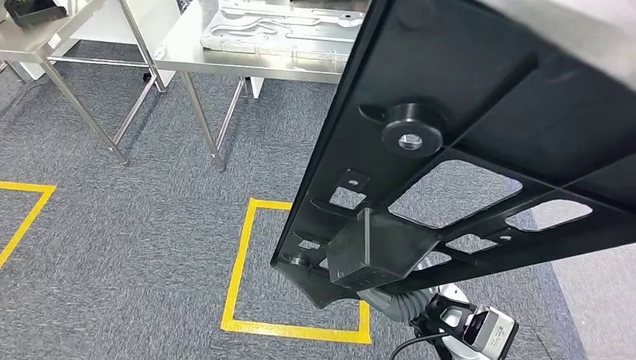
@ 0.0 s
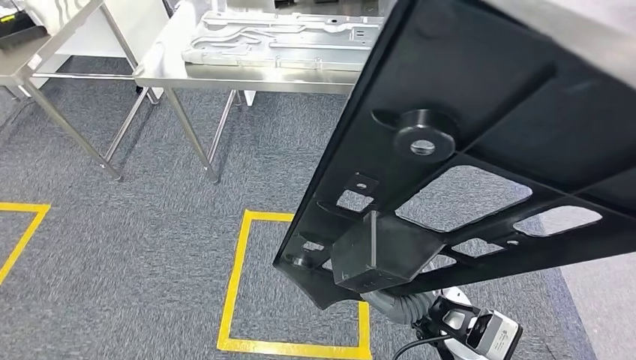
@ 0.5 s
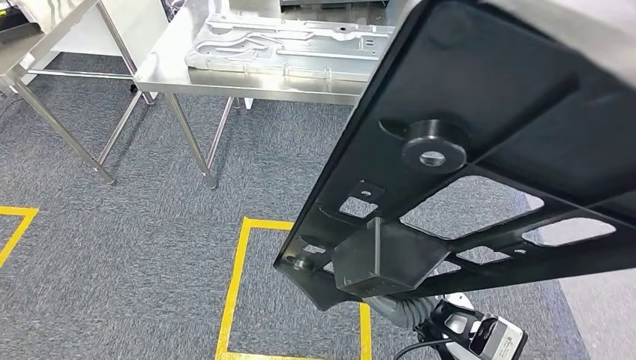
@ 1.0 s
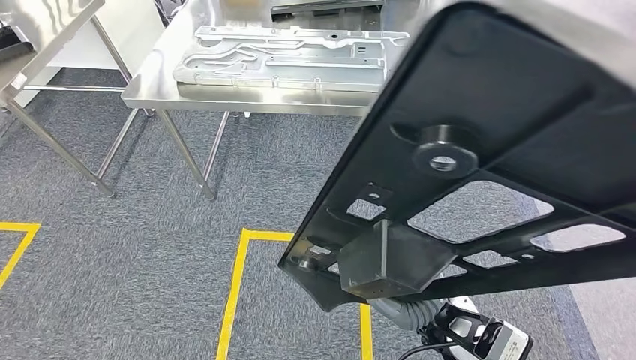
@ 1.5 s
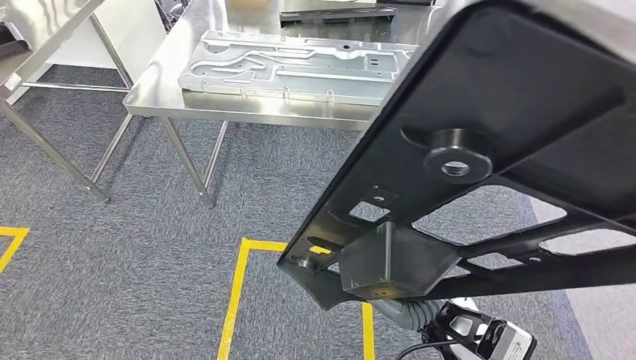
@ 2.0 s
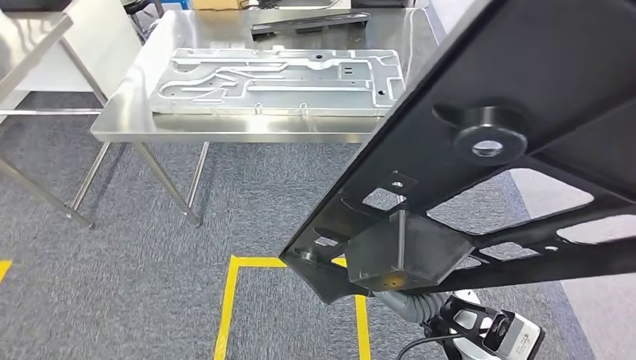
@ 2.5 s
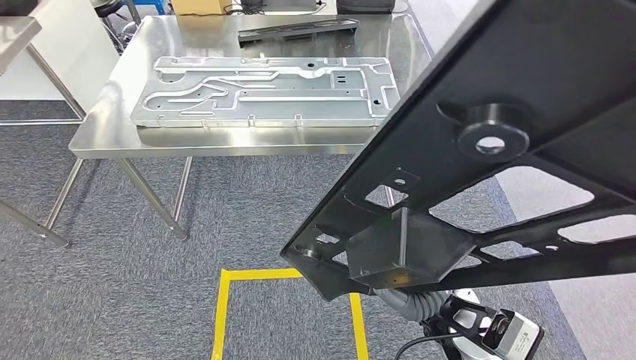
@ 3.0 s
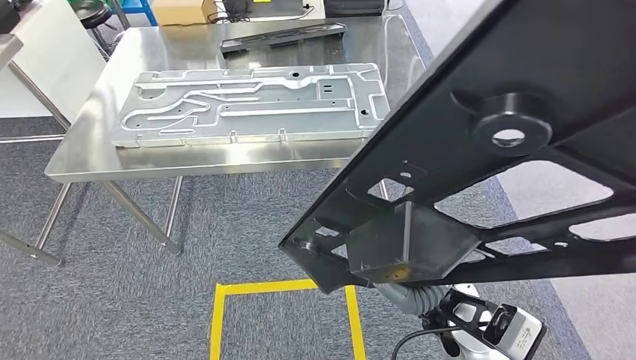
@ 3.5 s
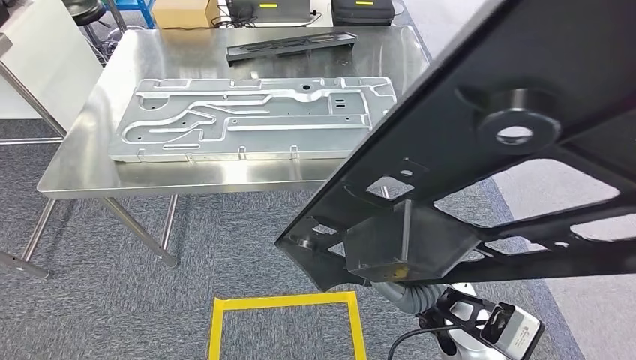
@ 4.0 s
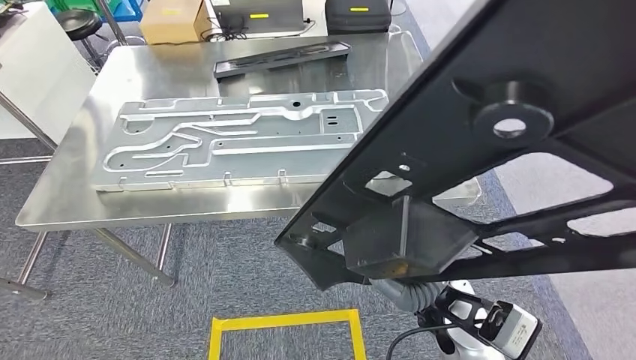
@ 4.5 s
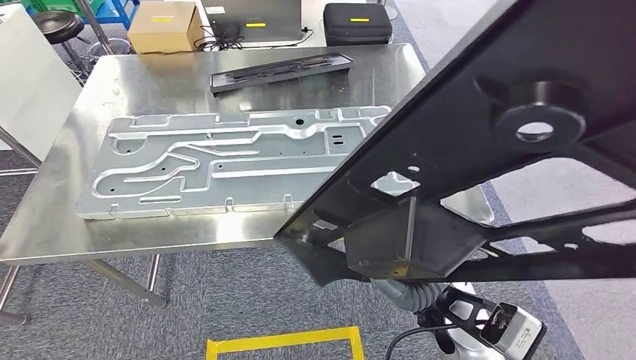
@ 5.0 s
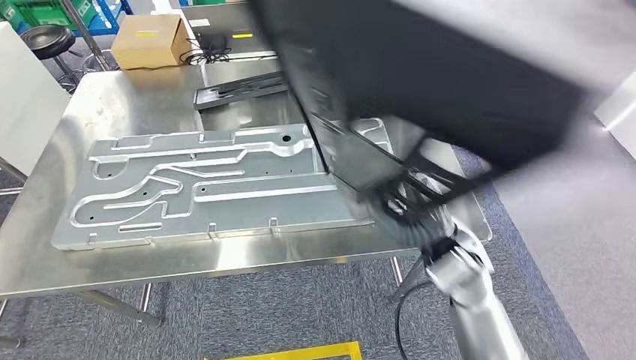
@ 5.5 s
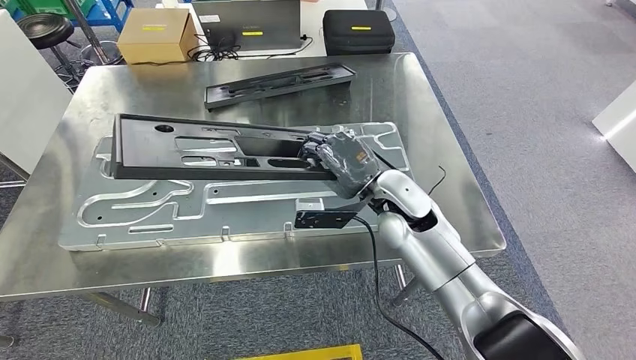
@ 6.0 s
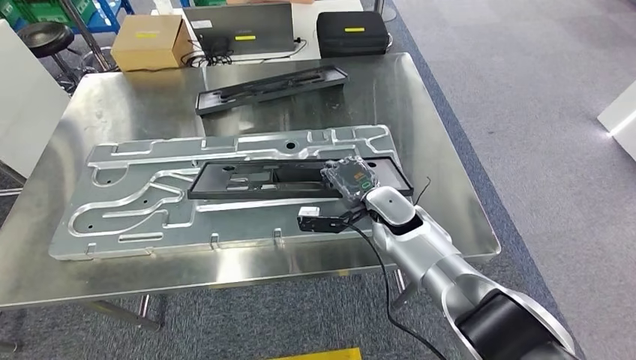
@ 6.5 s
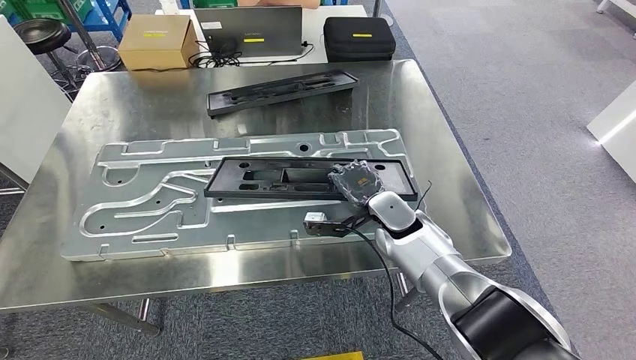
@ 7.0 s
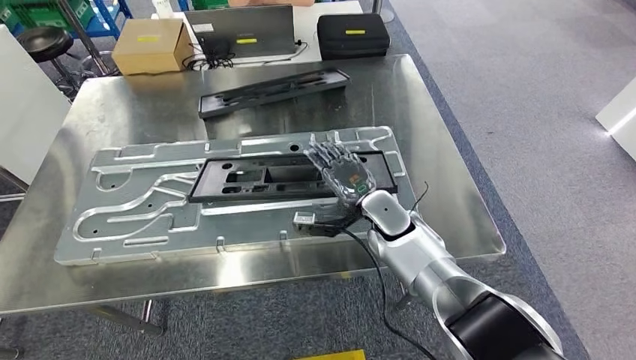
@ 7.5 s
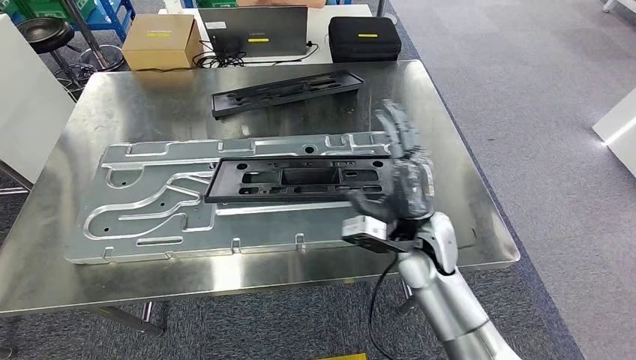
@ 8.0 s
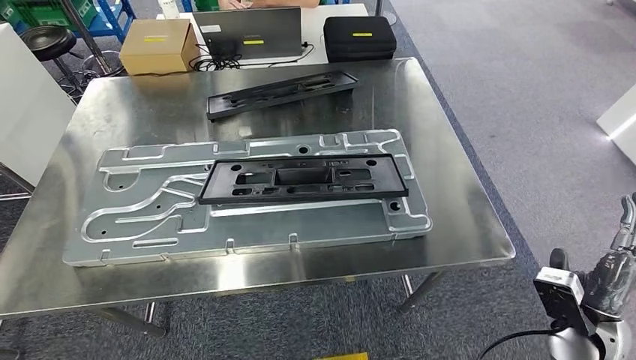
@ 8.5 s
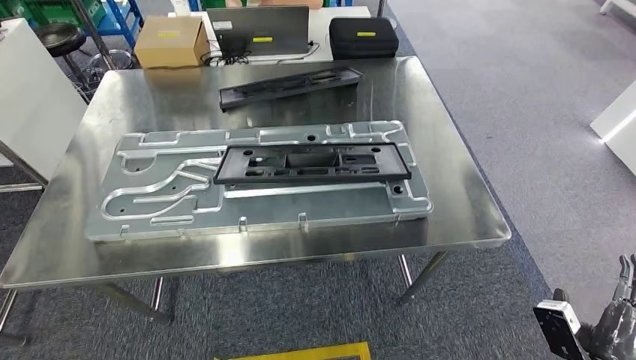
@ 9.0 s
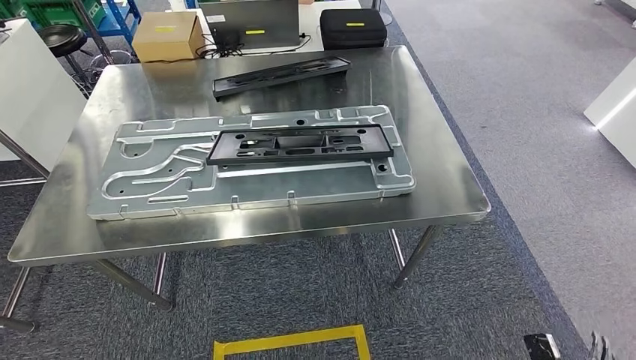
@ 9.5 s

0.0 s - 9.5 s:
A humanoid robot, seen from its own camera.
Step, 0.0 s - 3.5 s: Move the large material to the front of the workbench.
Step, 4.0 s - 9.0 s: Insert the large material into the corresponding hole on the workbench.

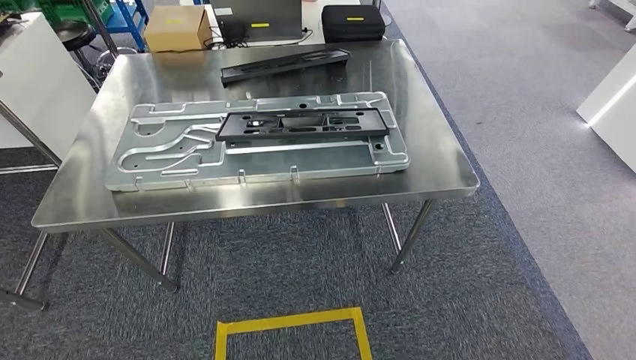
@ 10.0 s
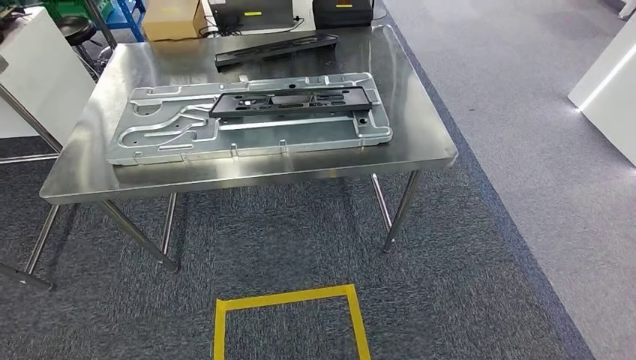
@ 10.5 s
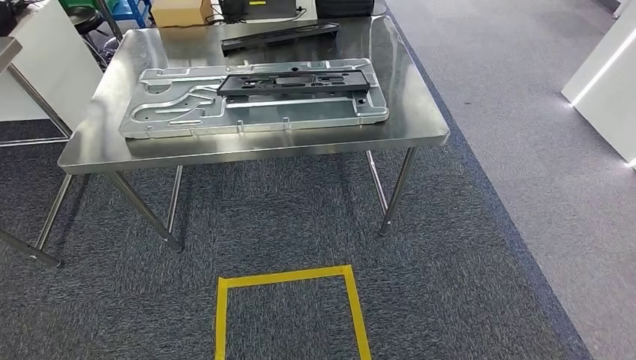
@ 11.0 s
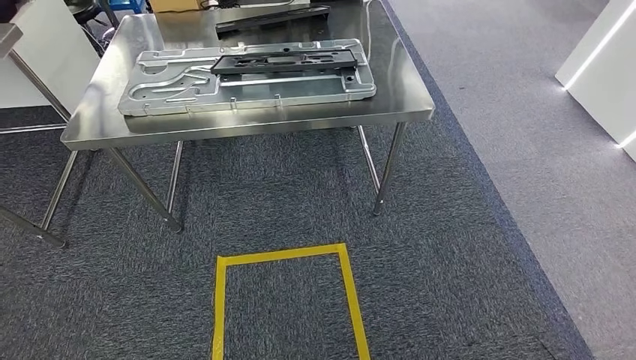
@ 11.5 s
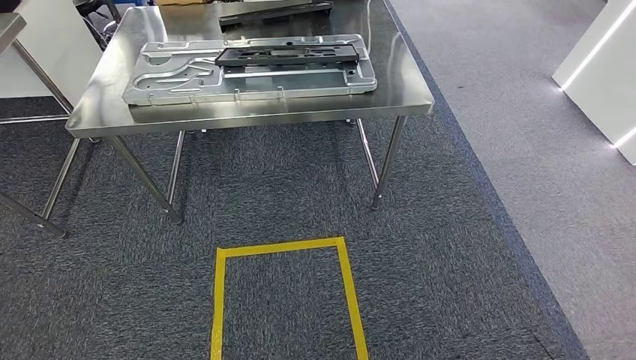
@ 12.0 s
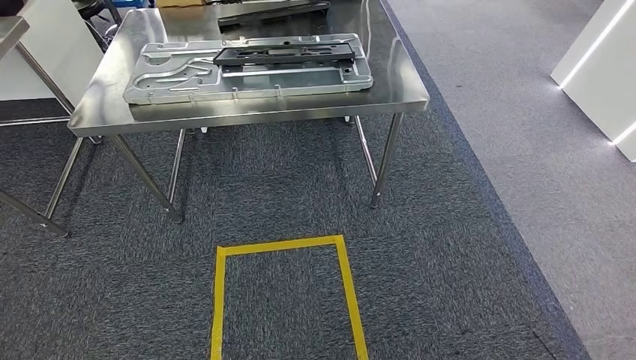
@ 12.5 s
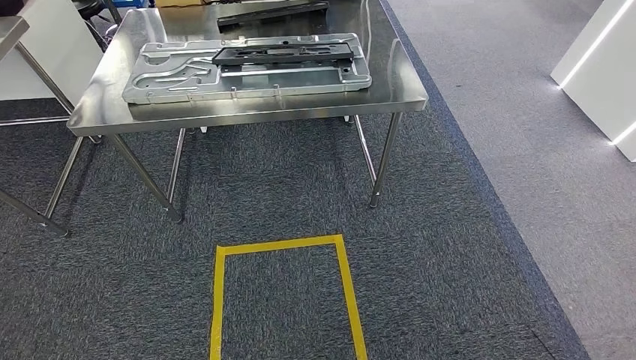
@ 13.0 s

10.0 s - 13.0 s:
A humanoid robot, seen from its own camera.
Step, 10.0 s - 13.0 s: Move to the initial position of the shelf.
11.5 s - 13.0 s: Both hands stay about where they are.
